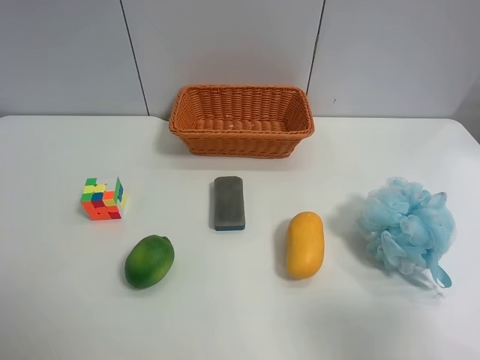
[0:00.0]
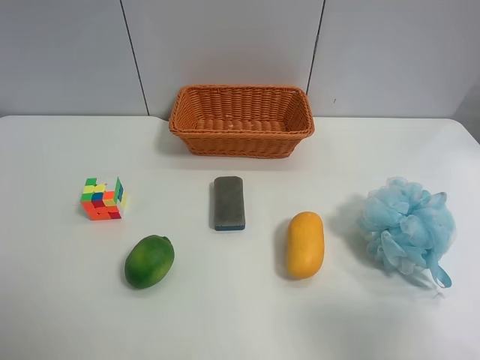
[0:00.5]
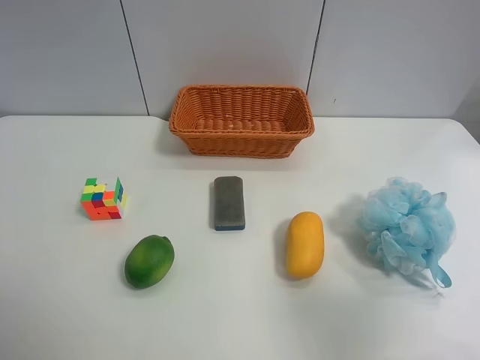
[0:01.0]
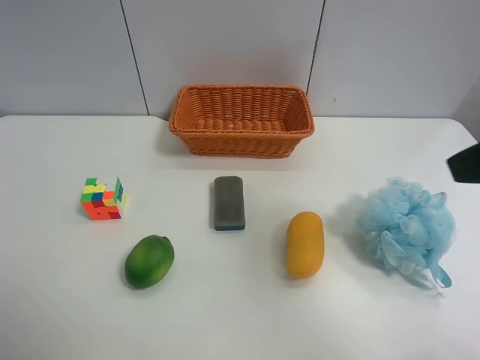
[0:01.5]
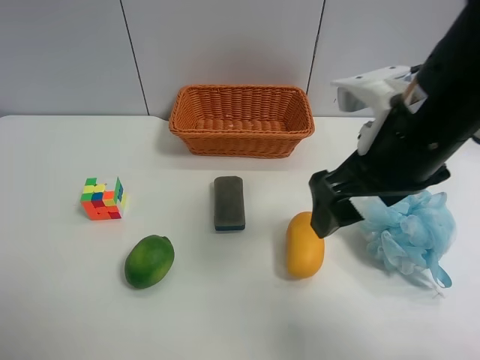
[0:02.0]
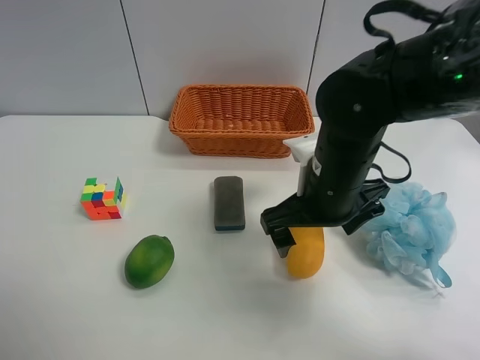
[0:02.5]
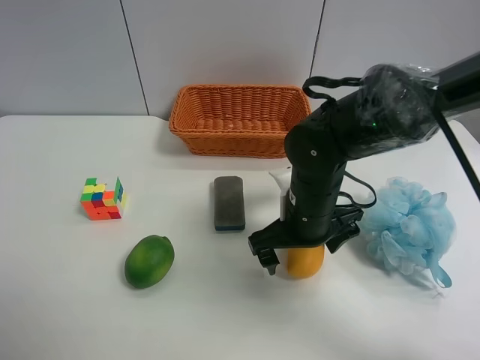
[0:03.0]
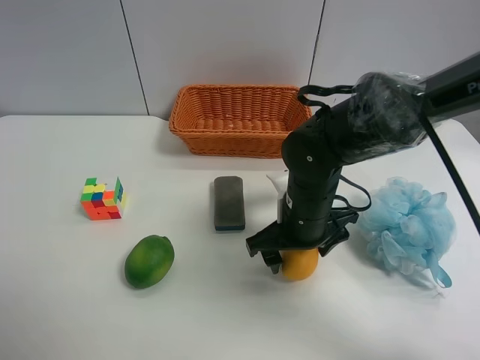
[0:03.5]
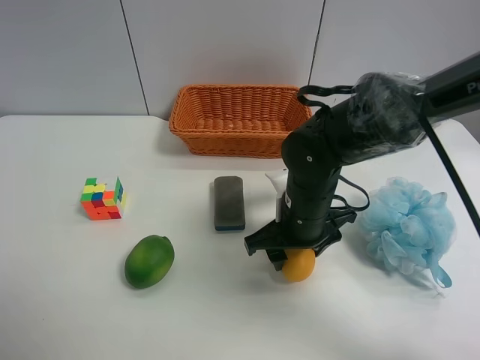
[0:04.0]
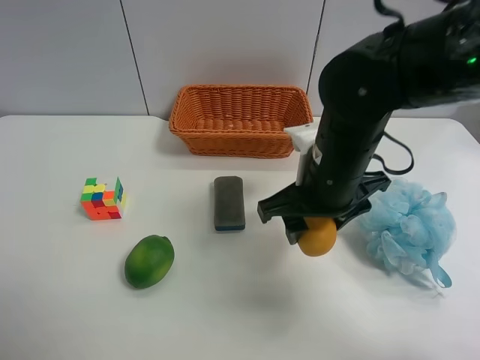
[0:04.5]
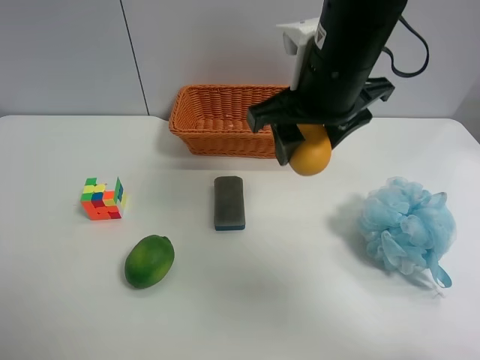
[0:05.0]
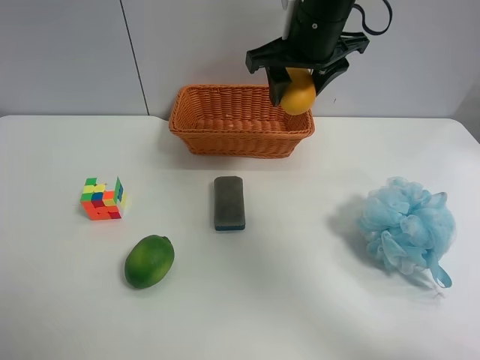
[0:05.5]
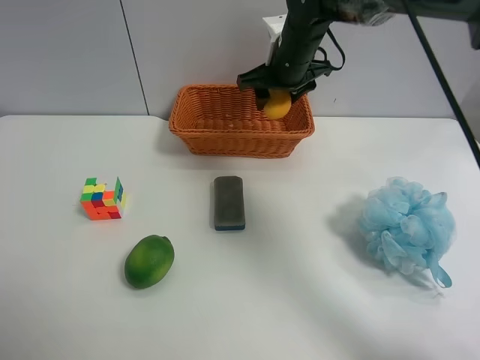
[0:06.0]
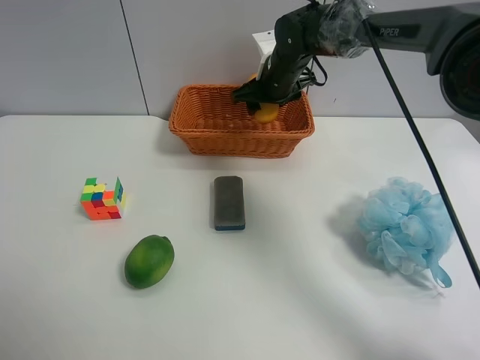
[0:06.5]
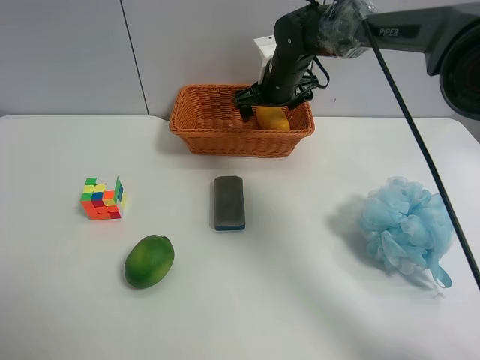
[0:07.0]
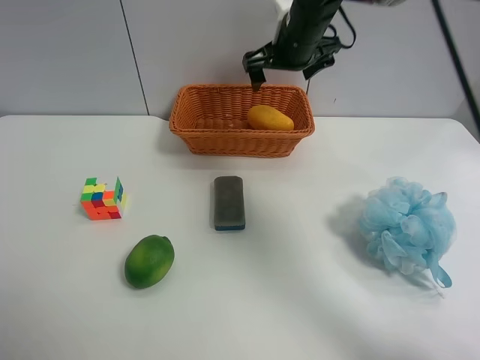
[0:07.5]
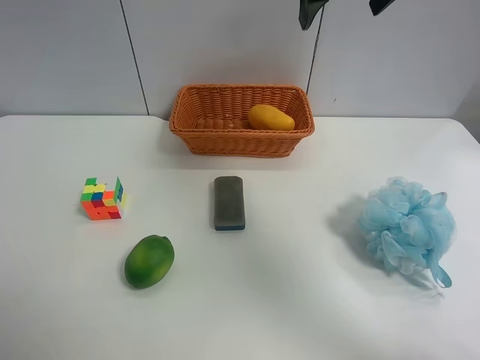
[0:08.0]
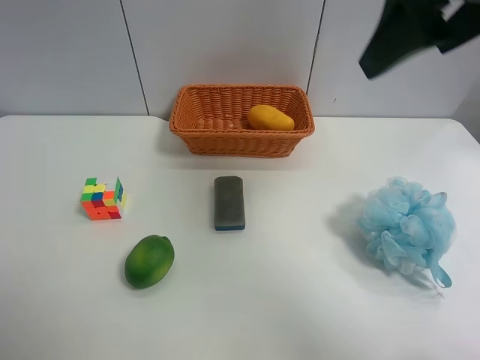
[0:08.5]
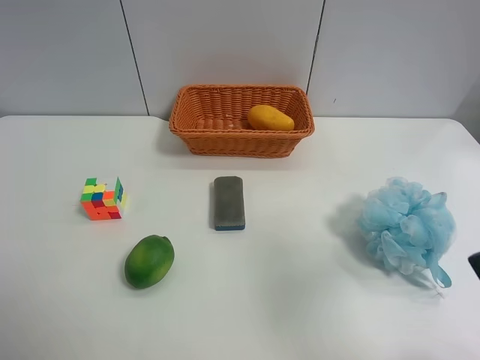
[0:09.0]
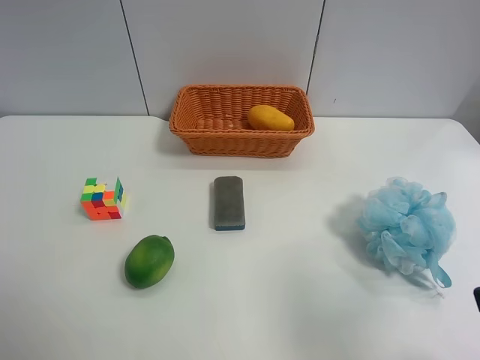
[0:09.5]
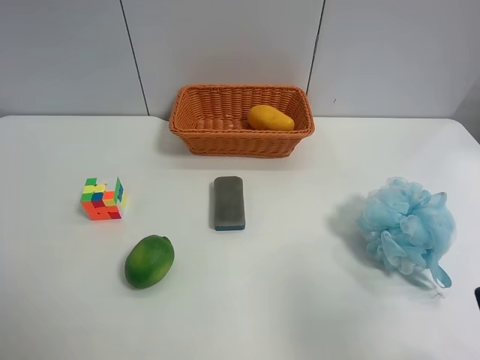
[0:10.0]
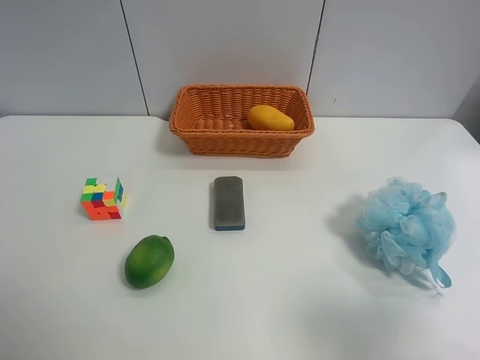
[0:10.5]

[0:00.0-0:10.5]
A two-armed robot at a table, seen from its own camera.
Task of the whole recording: Randomly grab green lemon or mangoes from the table and put them in a basket.
Step, 0:00.0 to 0:03.5: Grasp the mango with the right gripper.
Step, 0:04.0 to 0:07.5: Place the mango into the basket with the right gripper.
0:00.0 to 0:02.0: The right gripper shifts roughly 25 cm forward and to the left.
0:02.0 to 0:04.0: The right gripper travels downward by about 15 cm, and closes.
0:04.0 to 0:06.5: The right gripper is displaced forward by about 25 cm.
0:06.5 to 0:08.5: The right gripper goes about 35 cm backward and upward, and opens.
0:08.5 to 0:10.5: The right gripper is displaced backward, downward and to the right by about 25 cm.

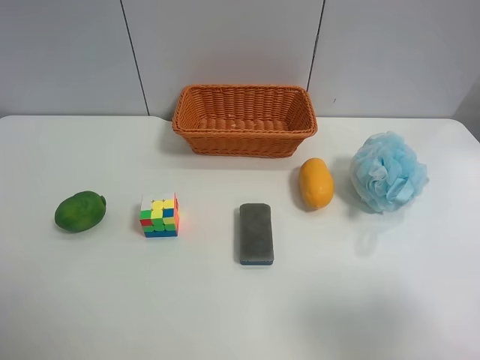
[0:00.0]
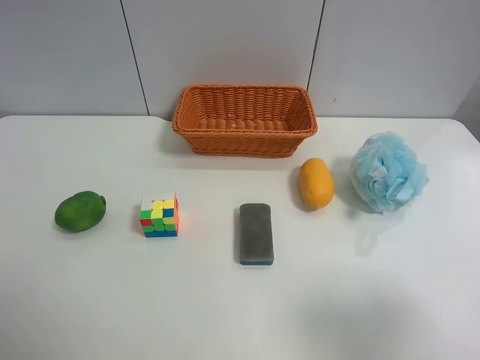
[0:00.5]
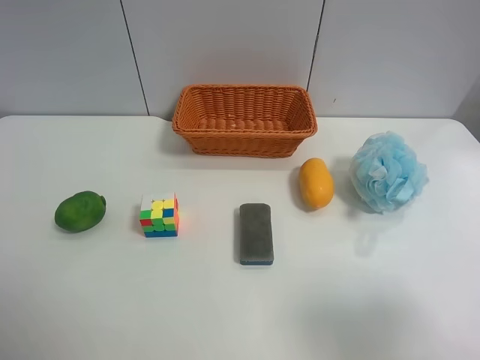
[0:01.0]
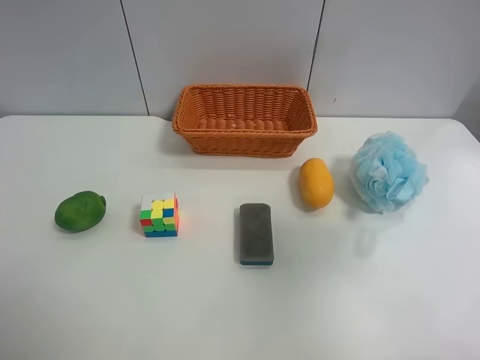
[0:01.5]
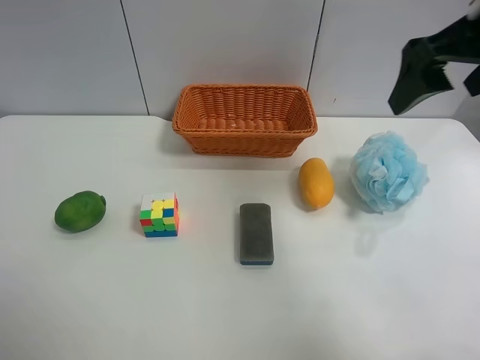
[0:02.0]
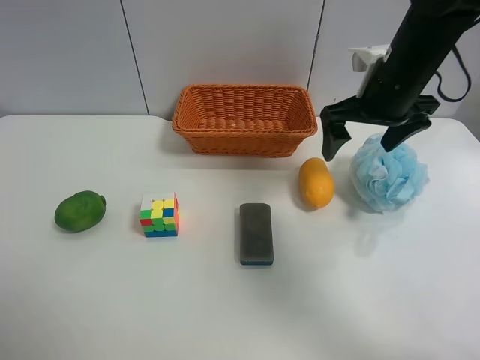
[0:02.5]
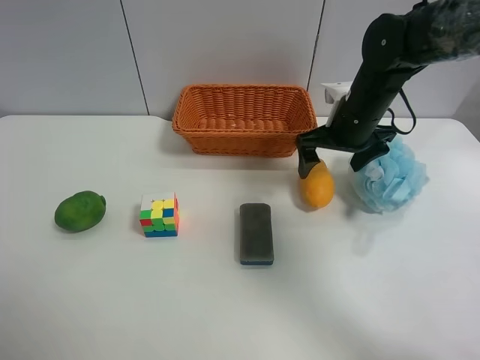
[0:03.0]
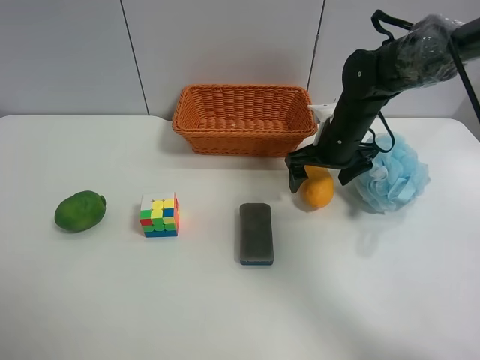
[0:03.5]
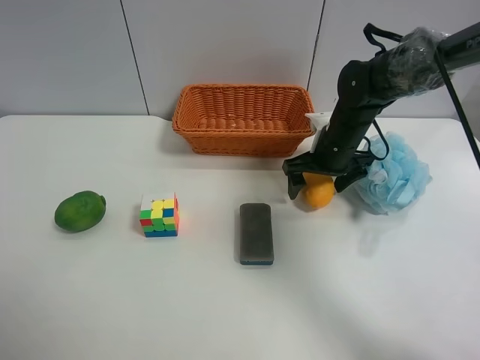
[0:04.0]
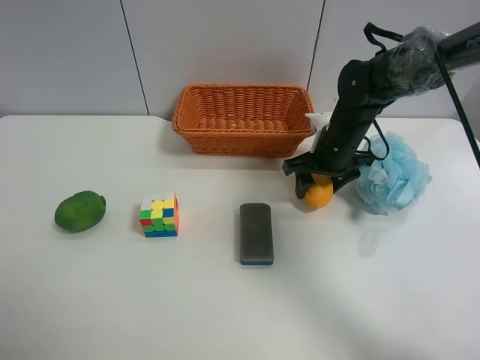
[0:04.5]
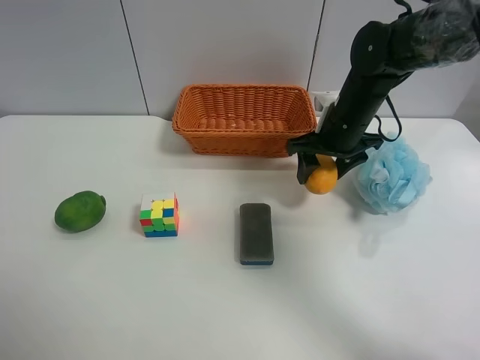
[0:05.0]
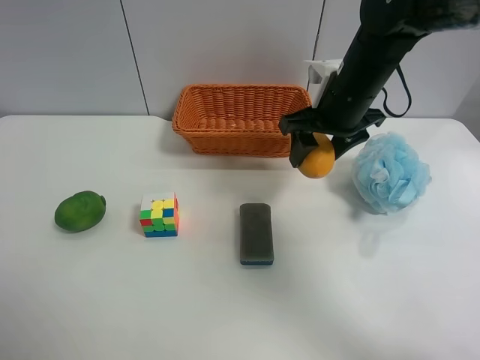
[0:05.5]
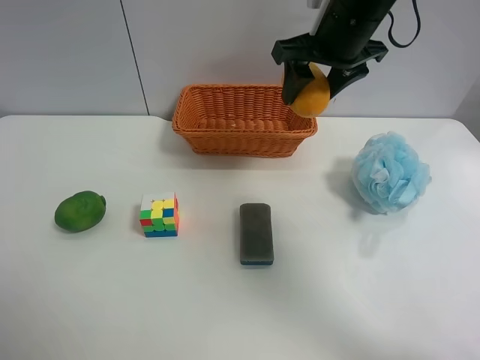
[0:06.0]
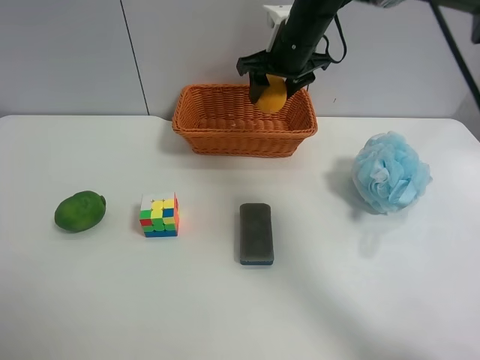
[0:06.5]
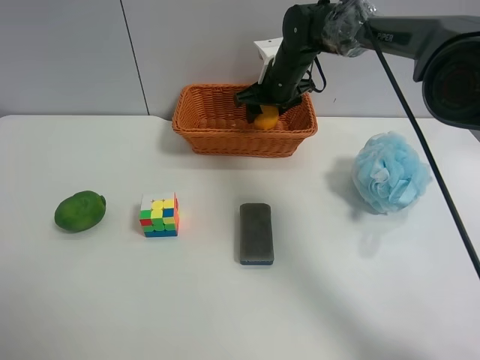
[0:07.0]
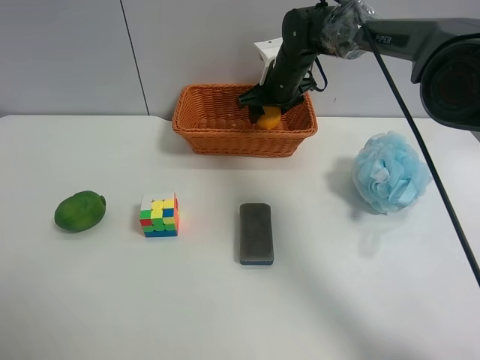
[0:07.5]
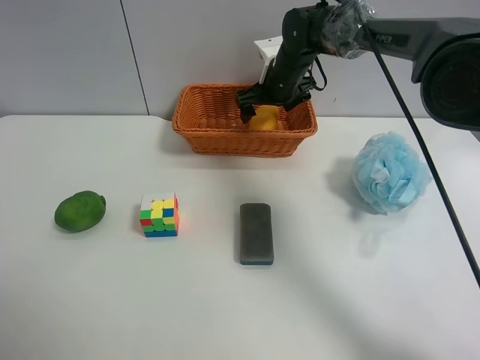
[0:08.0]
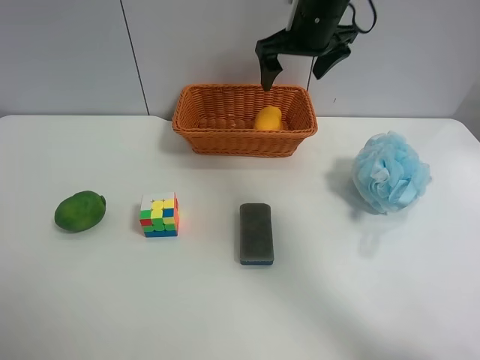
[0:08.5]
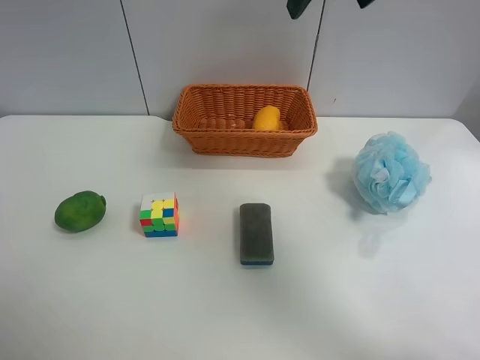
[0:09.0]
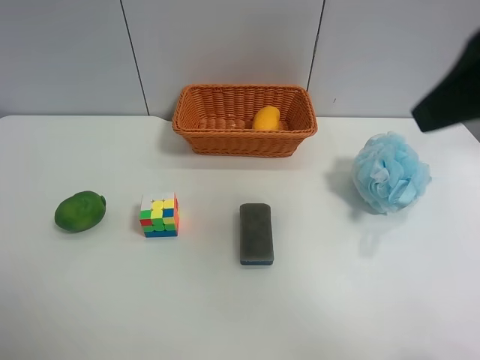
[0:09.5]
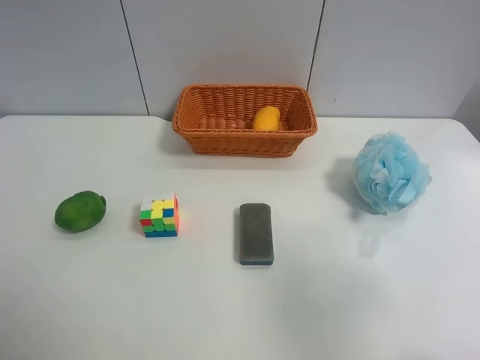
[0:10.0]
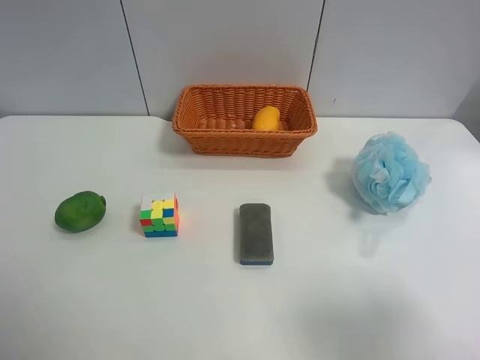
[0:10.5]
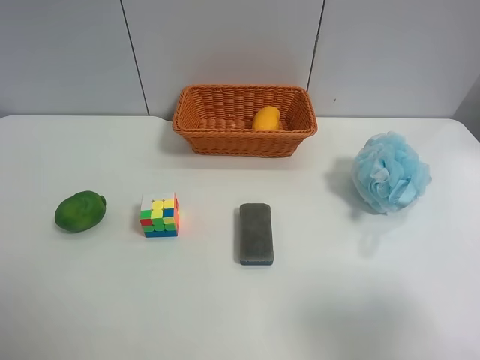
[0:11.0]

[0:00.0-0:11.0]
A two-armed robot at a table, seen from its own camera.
Task of the whole recording: Randomly grab green lemon or mangoes from the table and put them in a basket.
Step, 0:00.0 to 0:04.0: Grasp the mango with the right gripper.
Step, 0:04.5 to 0:08.5: Place the mango into the basket with the right gripper.
0:00.0 to 0:02.0: The right gripper travels forward by some 25 cm.
0:02.0 to 0:03.5: The right gripper heads downward and forward, covering roughly 25 cm.
0:03.5 to 0:05.5: The right gripper is displaced upward by about 10 cm, and closes.
0:05.5 to 0:07.5: The right gripper goes about 15 cm forward.
0:07.5 to 0:09.0: The right gripper travels upward and backward by roughly 30 cm, and opens.
0:09.0 to 0:11.0: The right gripper shifts some 40 cm backward, downward and to the right.
